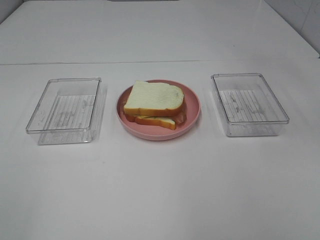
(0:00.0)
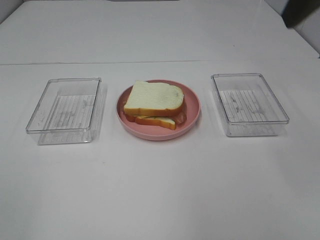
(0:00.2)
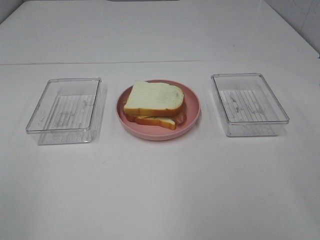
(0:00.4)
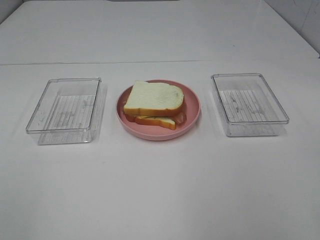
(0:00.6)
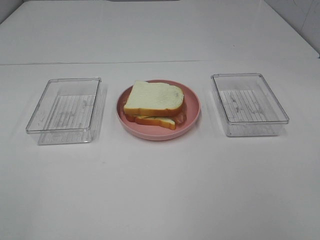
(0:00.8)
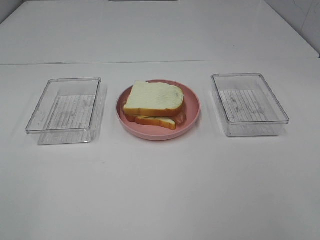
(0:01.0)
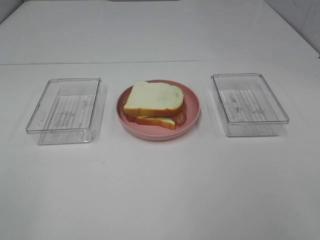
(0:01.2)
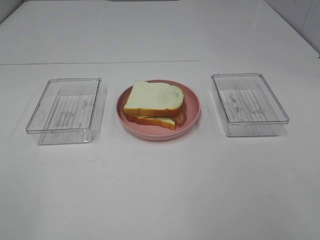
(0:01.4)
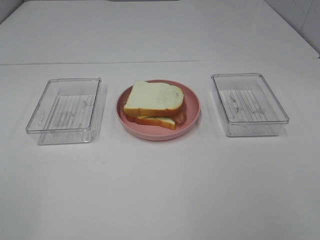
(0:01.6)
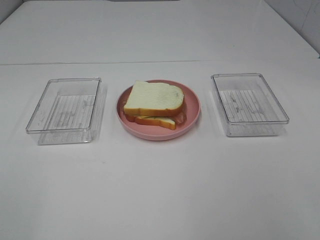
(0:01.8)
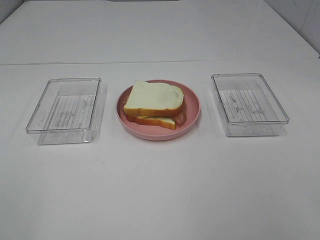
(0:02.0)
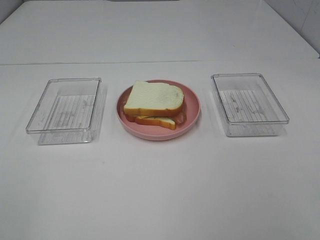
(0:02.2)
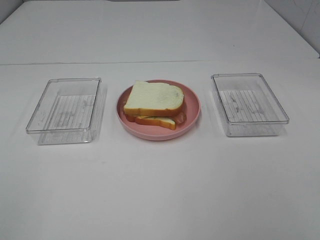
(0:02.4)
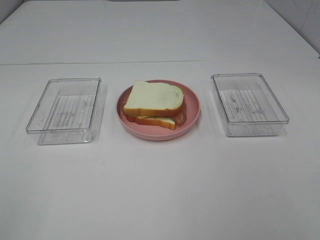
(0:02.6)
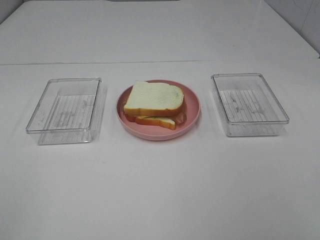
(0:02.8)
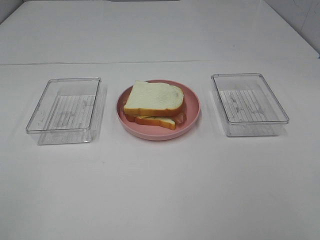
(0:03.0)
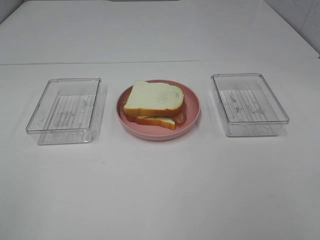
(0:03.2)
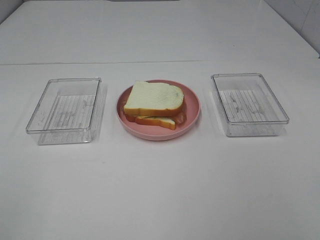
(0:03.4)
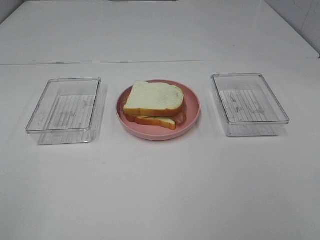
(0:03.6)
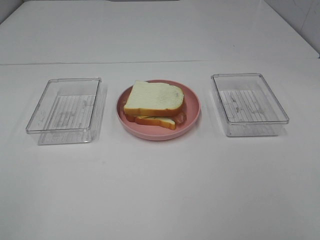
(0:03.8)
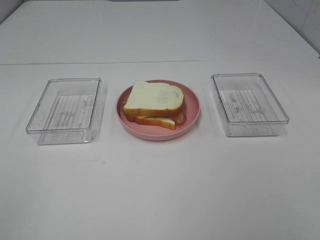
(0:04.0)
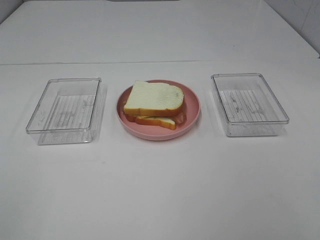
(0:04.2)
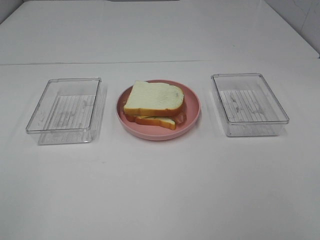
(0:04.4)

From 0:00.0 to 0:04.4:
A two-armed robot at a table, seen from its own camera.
Task of the whole recording: Make sandwiches.
From 0:03.0 to 0:04.4: Both grippers stay put.

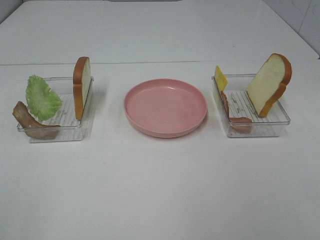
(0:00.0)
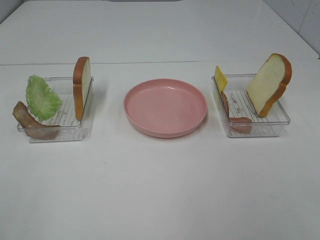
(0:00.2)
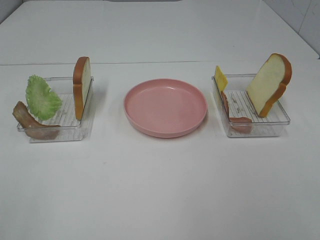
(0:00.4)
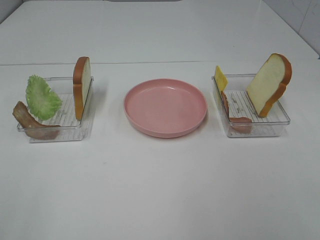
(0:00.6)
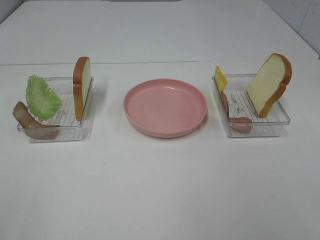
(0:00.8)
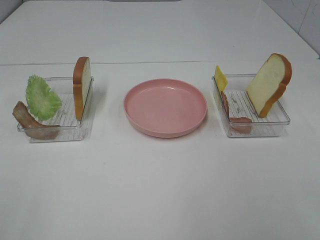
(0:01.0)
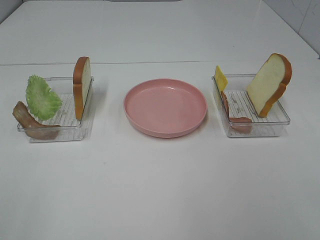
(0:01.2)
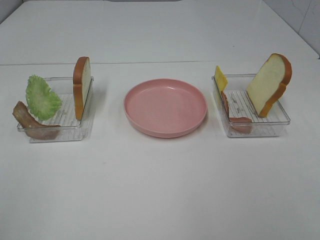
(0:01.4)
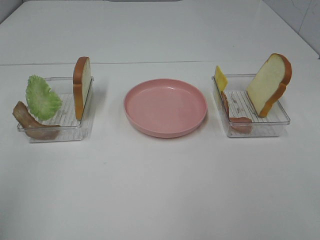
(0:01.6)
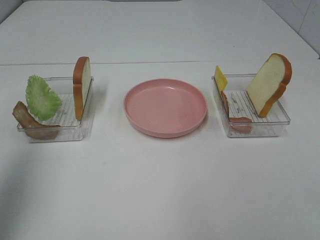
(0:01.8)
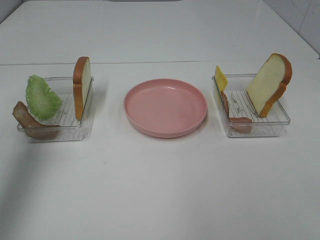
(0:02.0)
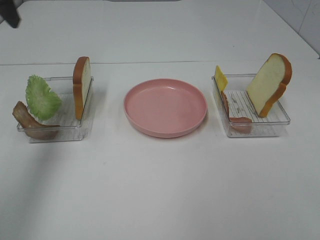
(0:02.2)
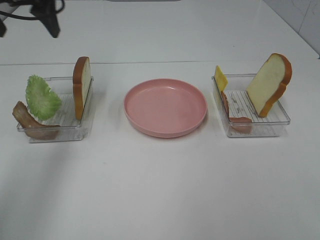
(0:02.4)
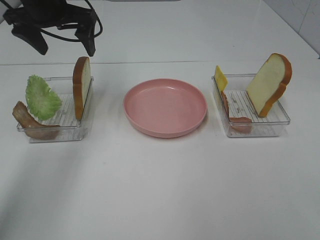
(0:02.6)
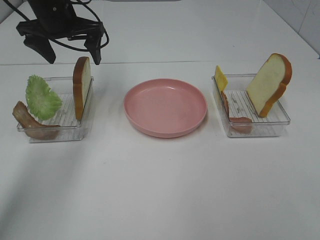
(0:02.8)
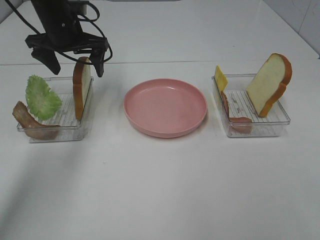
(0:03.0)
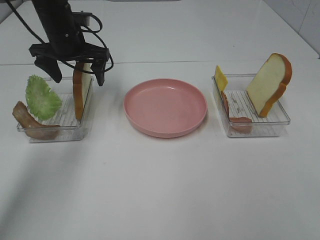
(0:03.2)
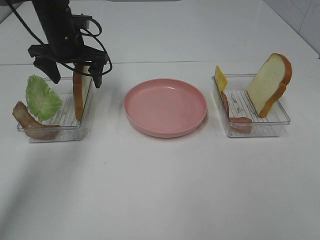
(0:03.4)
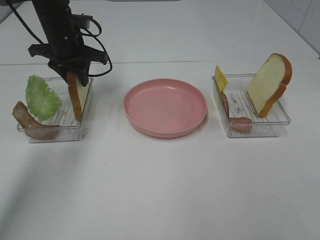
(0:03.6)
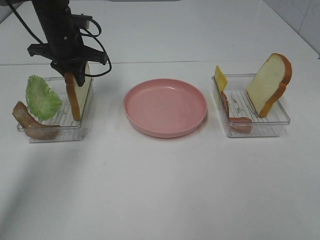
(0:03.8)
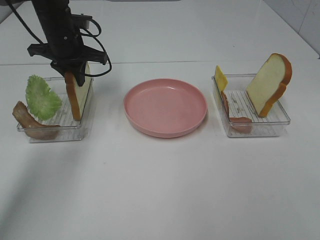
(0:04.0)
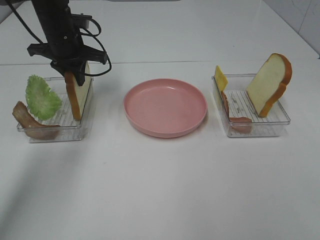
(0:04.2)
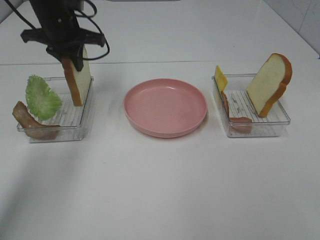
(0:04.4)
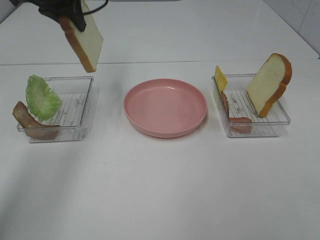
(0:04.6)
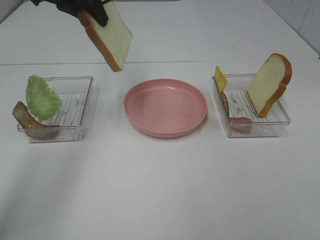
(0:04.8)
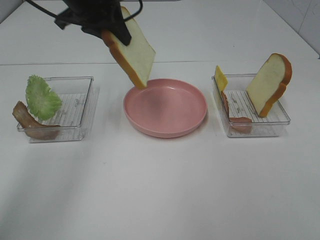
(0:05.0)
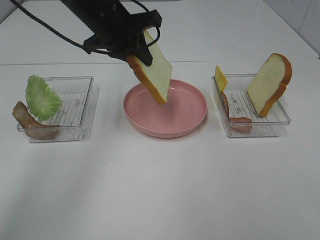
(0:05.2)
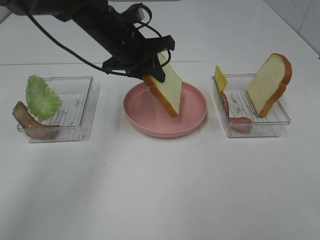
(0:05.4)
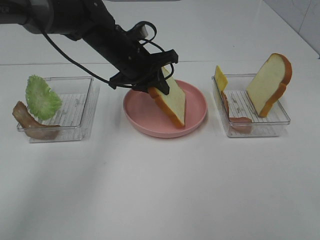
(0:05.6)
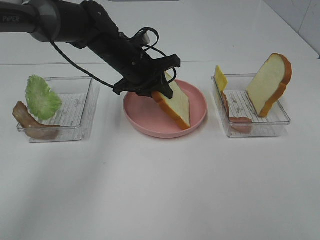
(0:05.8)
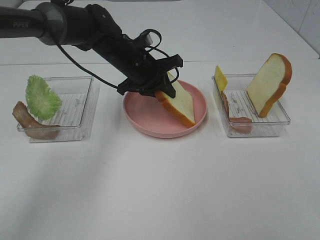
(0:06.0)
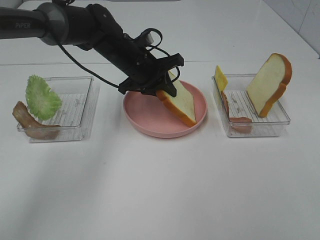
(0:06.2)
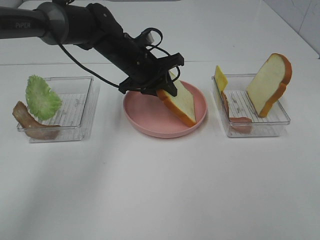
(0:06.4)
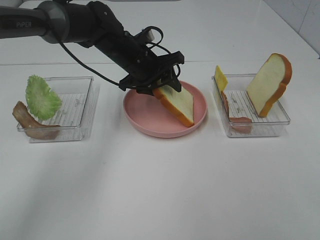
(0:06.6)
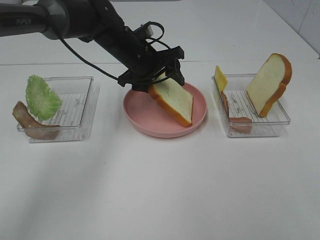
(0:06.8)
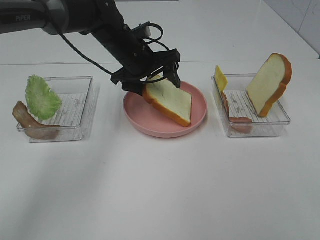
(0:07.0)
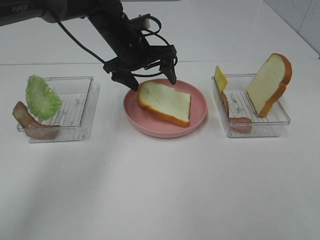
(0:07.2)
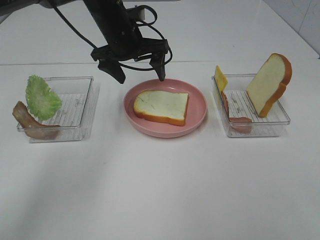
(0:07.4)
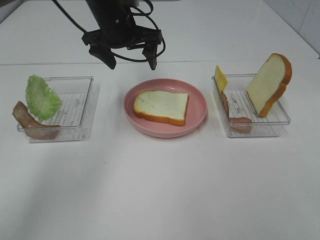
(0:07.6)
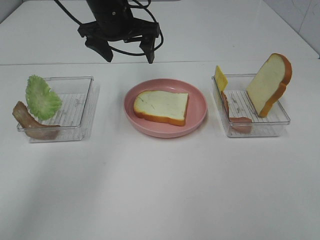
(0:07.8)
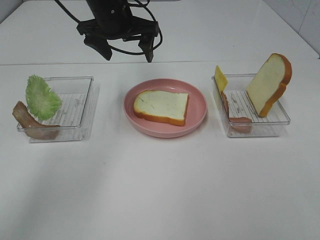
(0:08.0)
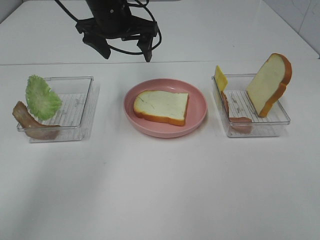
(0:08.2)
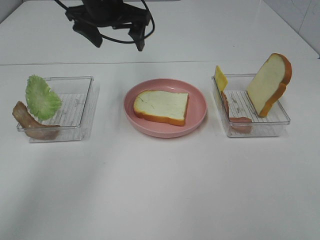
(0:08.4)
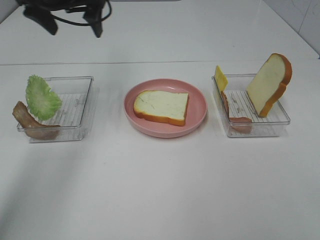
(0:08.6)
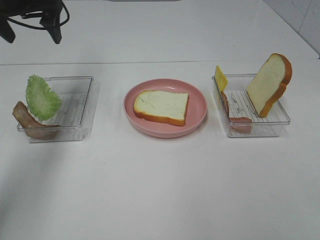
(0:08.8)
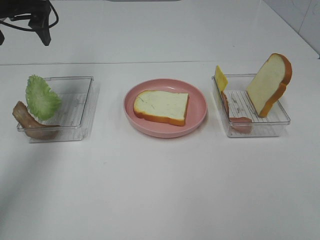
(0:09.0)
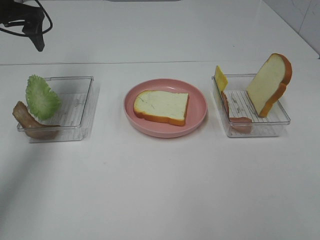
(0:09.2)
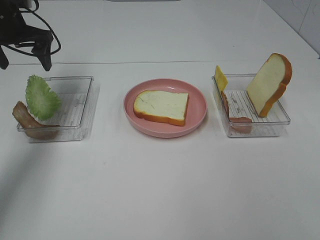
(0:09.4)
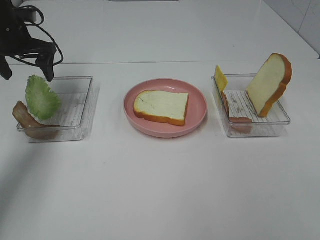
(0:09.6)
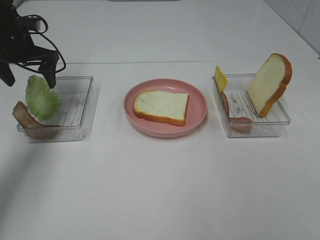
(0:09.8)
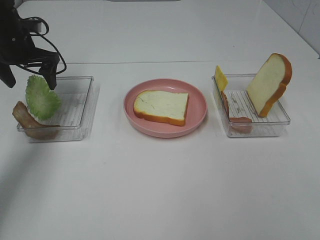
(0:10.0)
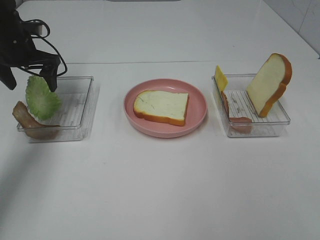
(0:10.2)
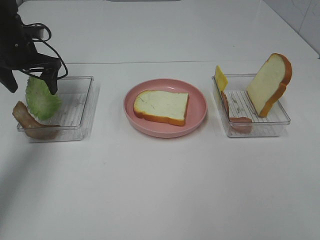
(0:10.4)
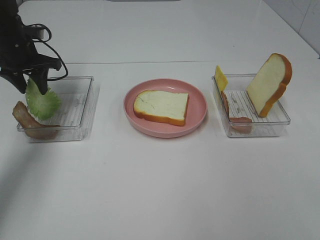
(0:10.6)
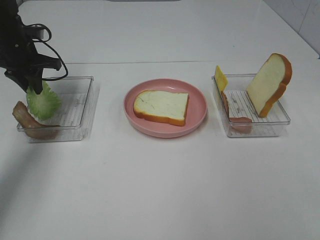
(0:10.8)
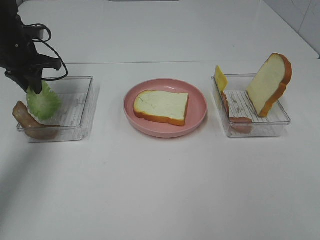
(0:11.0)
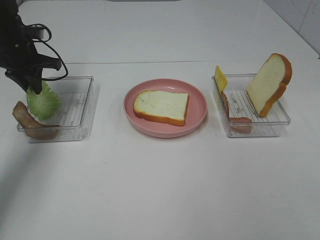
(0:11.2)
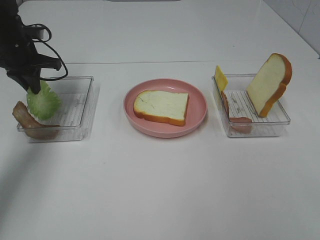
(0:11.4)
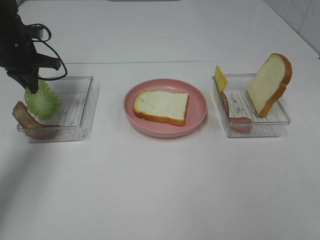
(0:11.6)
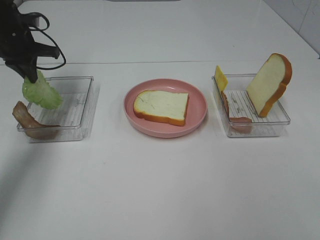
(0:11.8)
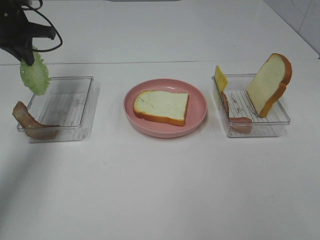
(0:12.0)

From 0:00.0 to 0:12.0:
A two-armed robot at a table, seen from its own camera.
Task of the whole recording: Make sandwiches.
Step, from 0:00.0 to 0:03.8: Left hand:grab the bread slice.
Step, from 0:04.0 to 0:07.6: Left hand:place the bread slice on the plate.
Step, from 0:07.8 to 0:11.6: Left hand:grab the lettuce slice.
From 0:01.6 to 0:03.0: The left gripper moves forward, about 40 cm.
From 0:03.0 to 0:04.4: The left gripper closes.
From 0:04.4 to 0:06.0: The left gripper heads to the right and downward, covering roughly 15 cm.
From 0:06.0 to 0:07.6: The left gripper travels upward by about 10 cm, and opens its fingers.
From 0:07.6 to 0:09.0: The left gripper travels to the left by approximately 20 cm.
From 0:09.0 to 0:10.4: The left gripper travels downward by roughly 10 cm.
From 0:10.4 to 0:12.0: The left gripper shifts approximately 5 cm upward, and closes its fingers.

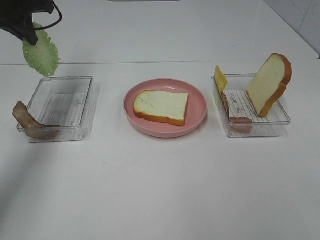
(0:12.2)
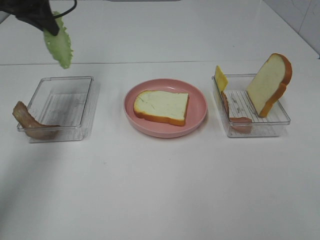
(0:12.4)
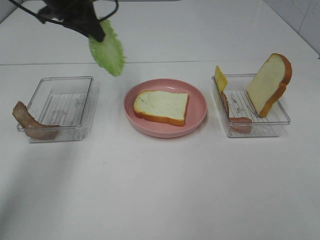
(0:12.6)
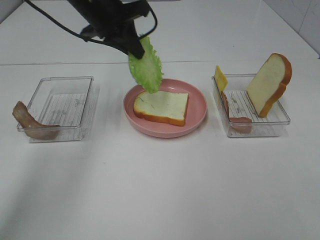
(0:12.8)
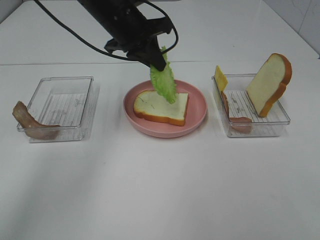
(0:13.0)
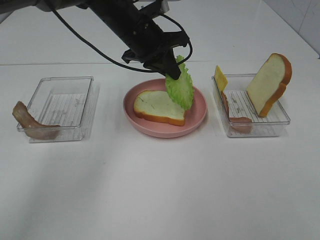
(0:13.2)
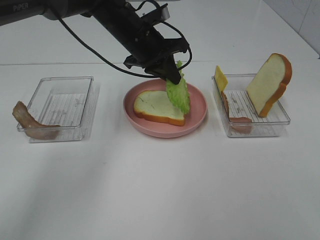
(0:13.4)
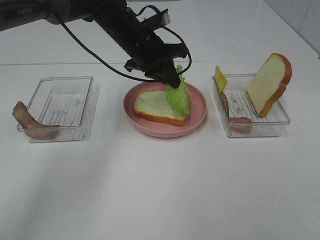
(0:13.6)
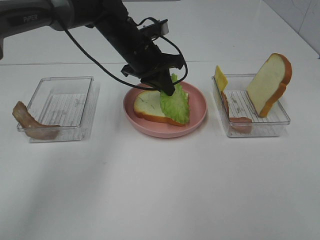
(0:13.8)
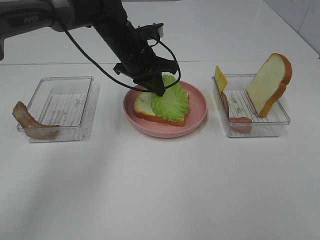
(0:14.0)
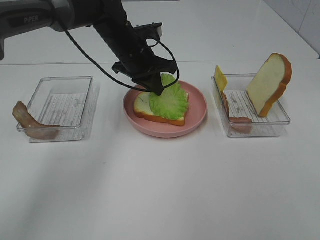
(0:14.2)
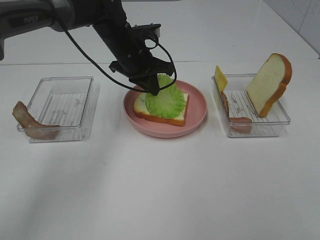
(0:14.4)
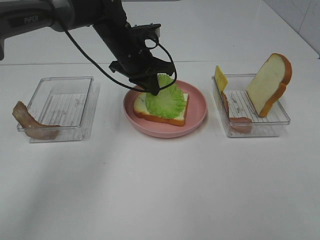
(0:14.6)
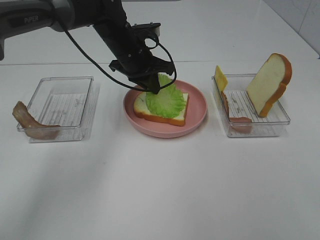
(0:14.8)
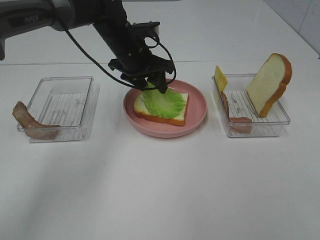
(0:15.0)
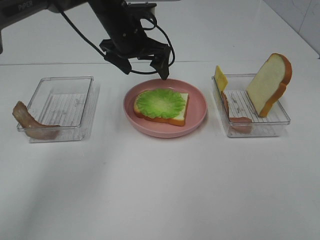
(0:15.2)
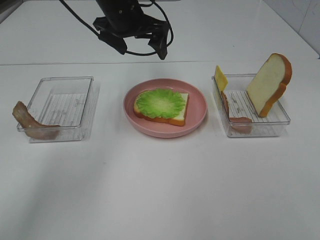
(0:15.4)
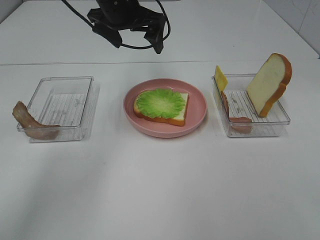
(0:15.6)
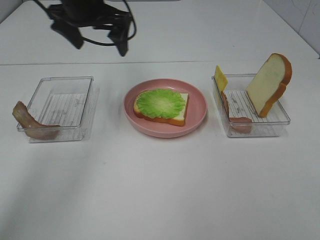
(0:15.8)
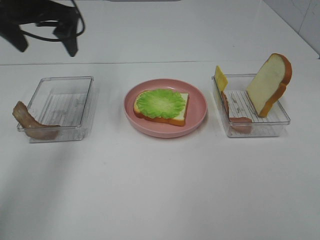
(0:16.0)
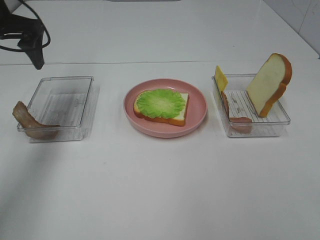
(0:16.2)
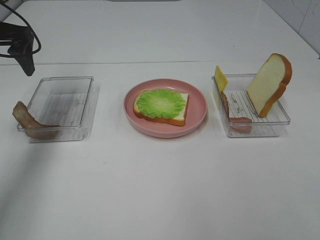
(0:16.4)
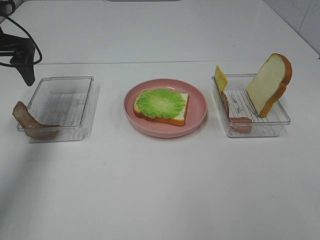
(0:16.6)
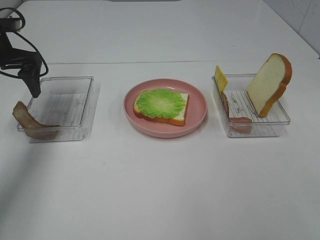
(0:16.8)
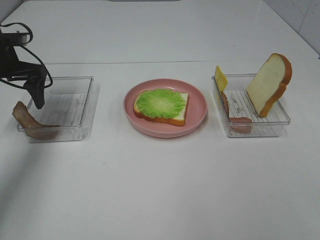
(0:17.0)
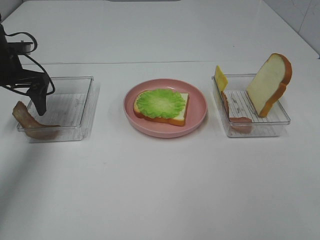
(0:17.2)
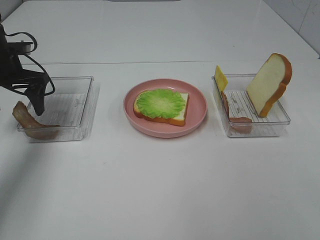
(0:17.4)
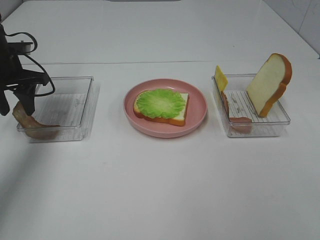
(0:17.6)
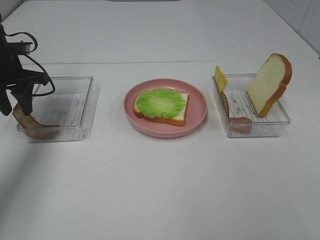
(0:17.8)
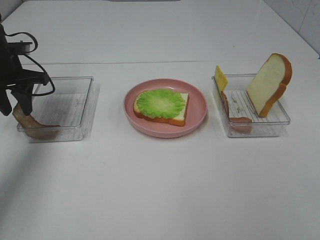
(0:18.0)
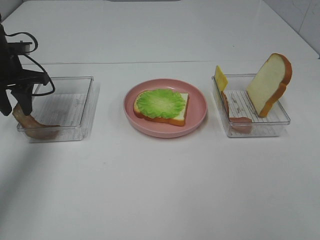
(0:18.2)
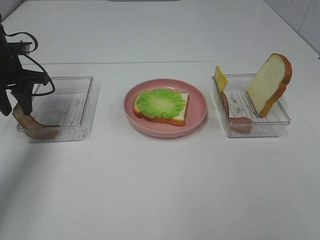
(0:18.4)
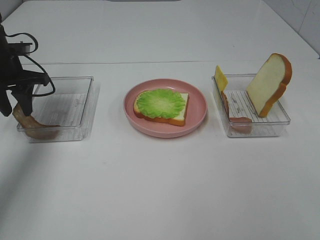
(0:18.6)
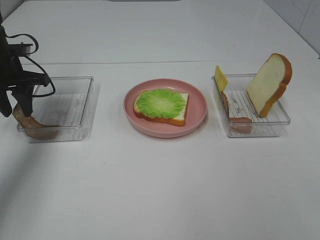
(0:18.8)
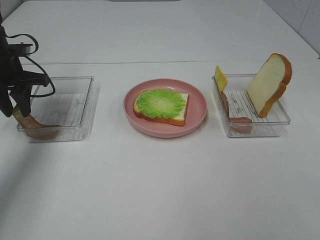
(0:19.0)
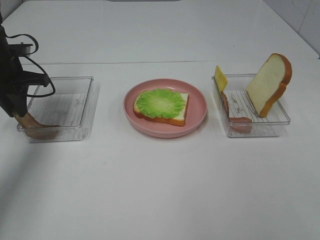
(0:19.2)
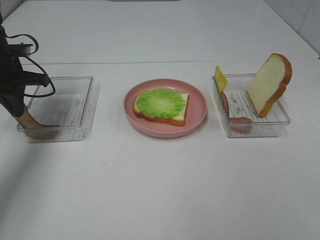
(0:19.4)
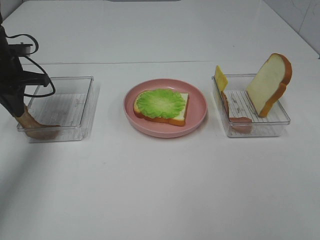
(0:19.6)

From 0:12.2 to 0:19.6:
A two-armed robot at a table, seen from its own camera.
Task of the whole recording: Make sandwiches.
Step, from 0:12.2 to 0:15.2: Left hand:place the lettuce slice on the bread slice.
From 0:12.2 to 0:13.6: The left gripper heads to the right and downward, covering some 25 cm.
From 0:13.6 to 0:15.2: The left gripper opens up.
From 0:15.2 to 0:16.6: The left gripper shifts approximately 25 cm to the left.
From 0:16.6 to 0:18.2: The left gripper goes roughly 5 cm downward, and closes up.
From 0:18.2 to 0:19.6: The left gripper closes.
